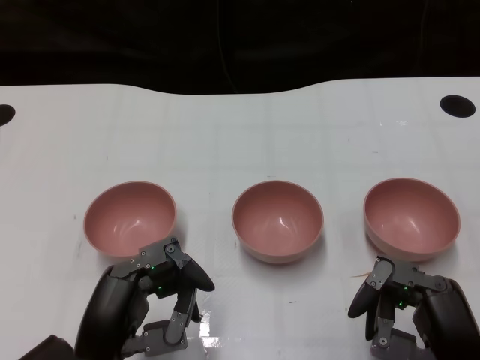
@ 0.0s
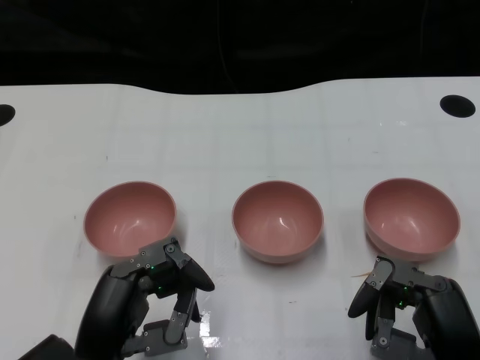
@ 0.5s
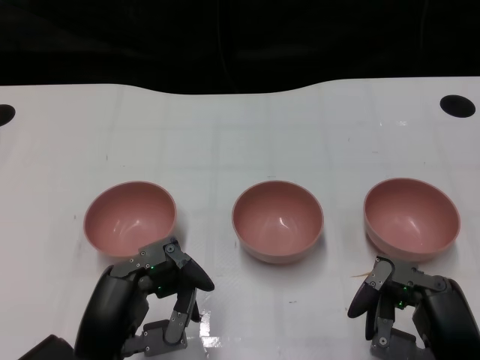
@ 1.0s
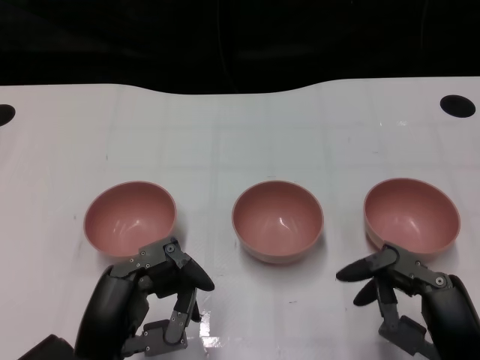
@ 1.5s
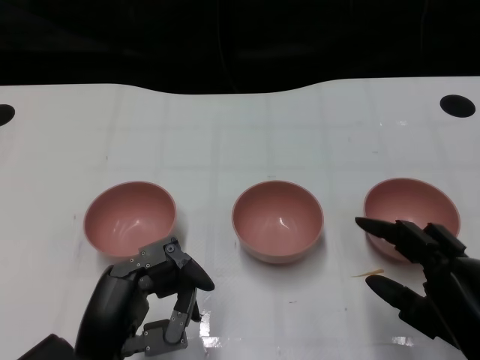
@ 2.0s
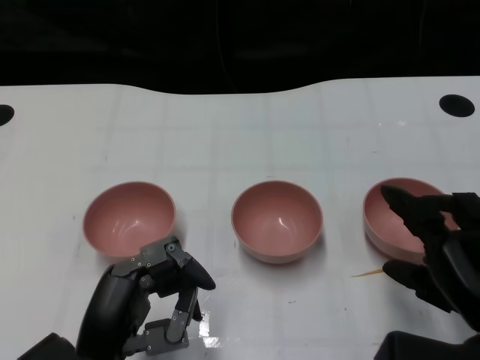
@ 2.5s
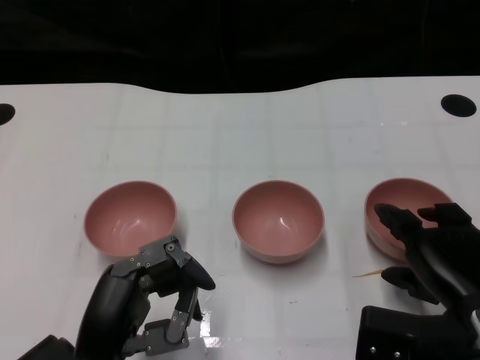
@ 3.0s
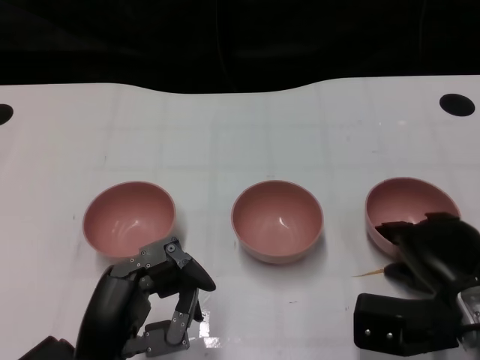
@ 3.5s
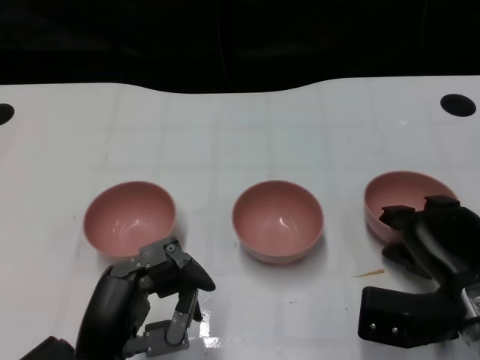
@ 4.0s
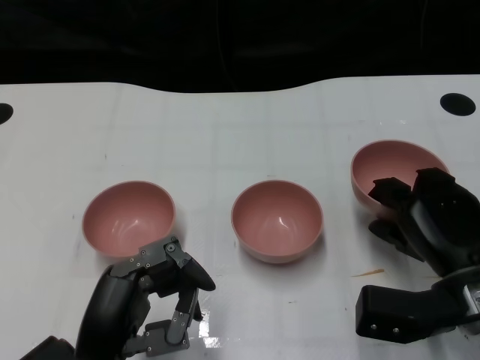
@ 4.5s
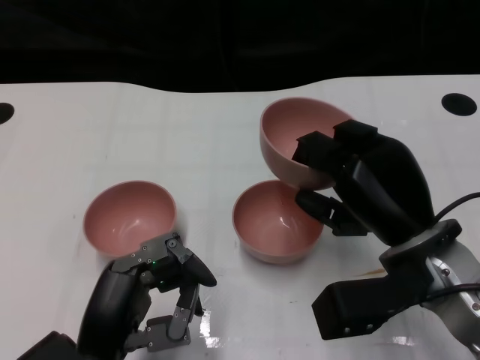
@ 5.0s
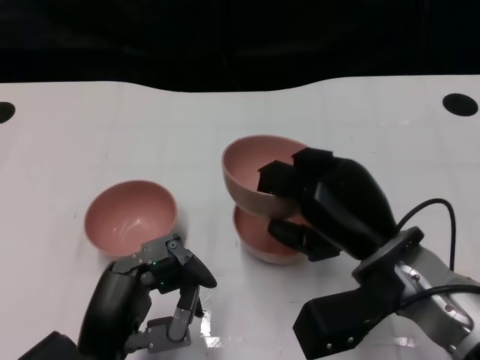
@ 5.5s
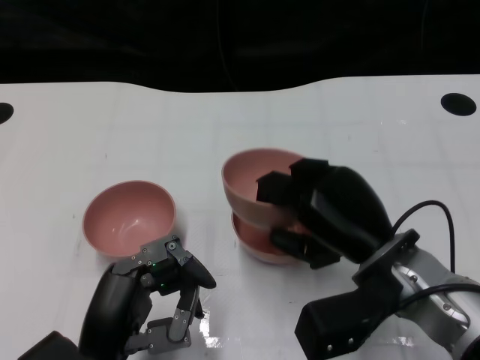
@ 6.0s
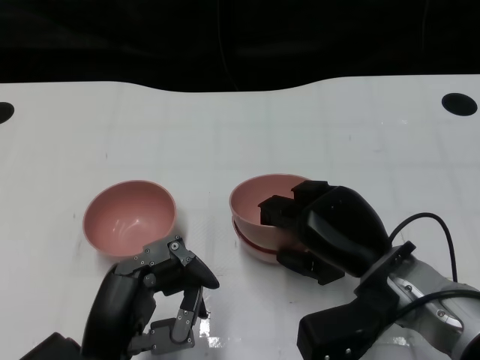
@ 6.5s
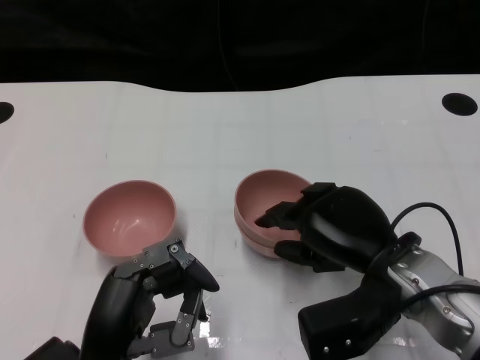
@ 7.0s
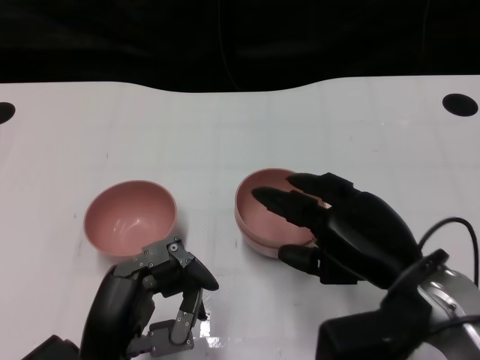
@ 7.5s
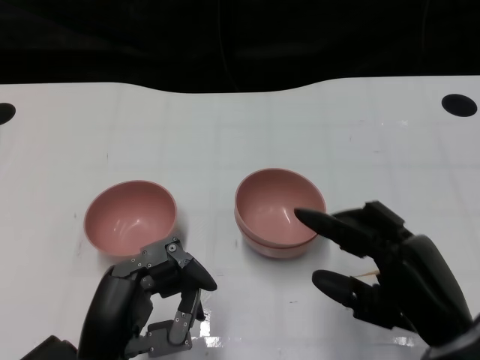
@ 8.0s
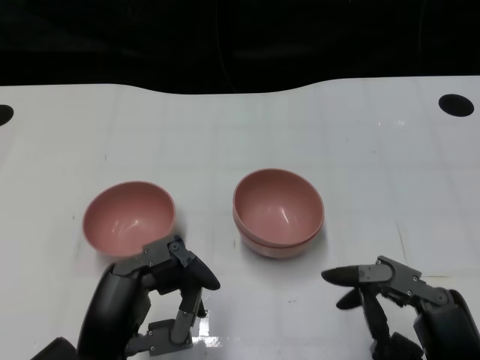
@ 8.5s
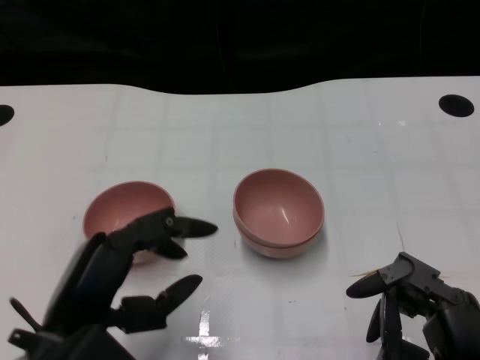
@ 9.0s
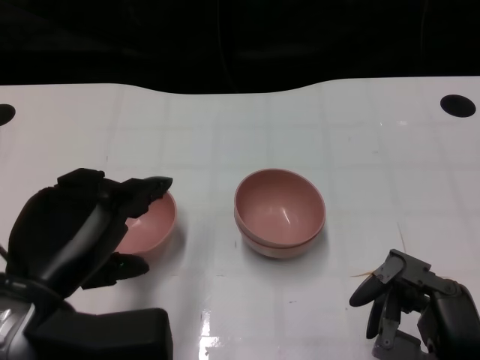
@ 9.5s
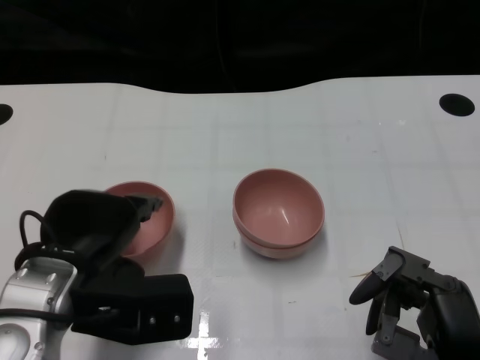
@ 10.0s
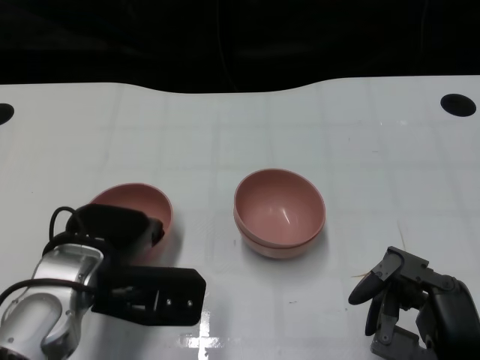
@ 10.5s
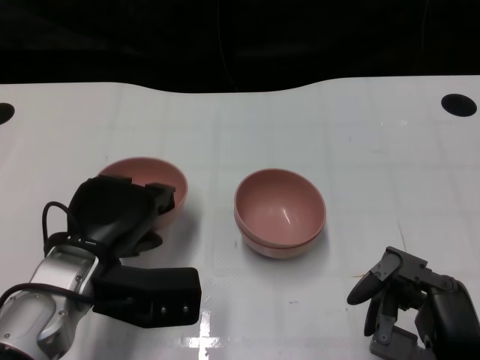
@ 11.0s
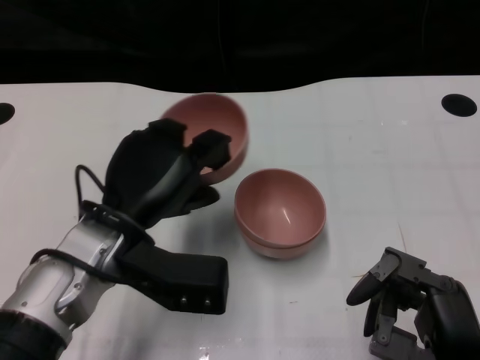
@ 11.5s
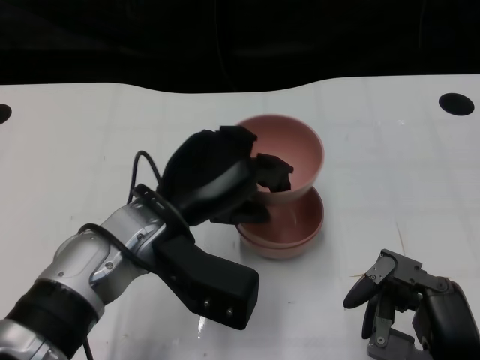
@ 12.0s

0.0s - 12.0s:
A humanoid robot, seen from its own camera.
Task of the whole recording: Pick up the bowl on one side of the table and place it on top of the middle bowl, then pick up the bowl on the other side of the table and place it on top of the middle bowls.
Step, 1.5s - 4.0s: Grasp the bowl on the right with the right gripper.
Step, 4.5s - 7.5s: Place the bowl on the right onto the bowl in the middle with right gripper.
Step, 8.0s - 10.5s: Grasp the bowl on the left with the left gripper.
2.0s - 4.0s: The right hand shifts about 10 cm forward.
4.0s - 6.0s: The right hand goes about 10 cm to the left and upward.
6.0s - 8.0s: The right hand is displaced backward and to the right by some 10 cm.
8.0s - 10.0s: The left hand is displaced forward and upward by some 10 cm.
10.0s - 12.0s: The left hand is displaced to the right by roughly 10 cm.

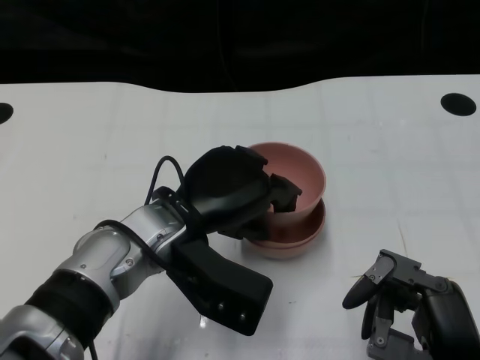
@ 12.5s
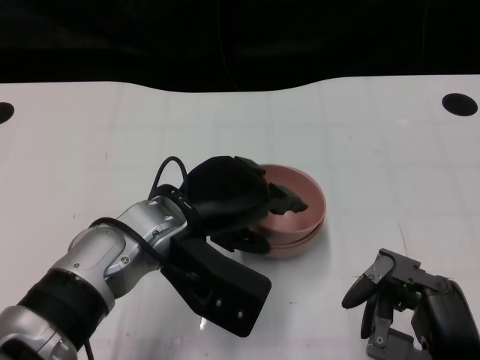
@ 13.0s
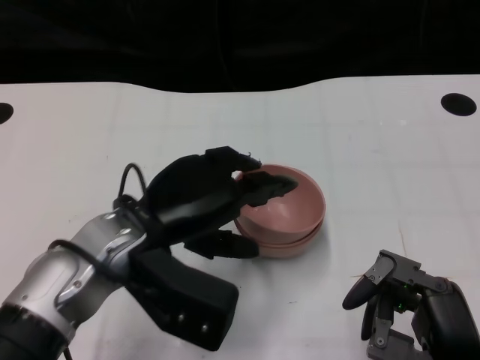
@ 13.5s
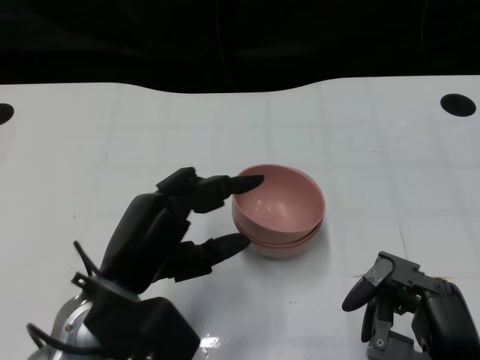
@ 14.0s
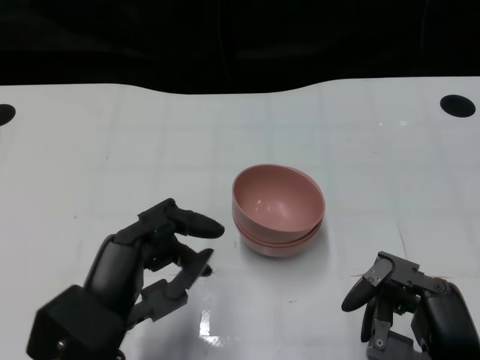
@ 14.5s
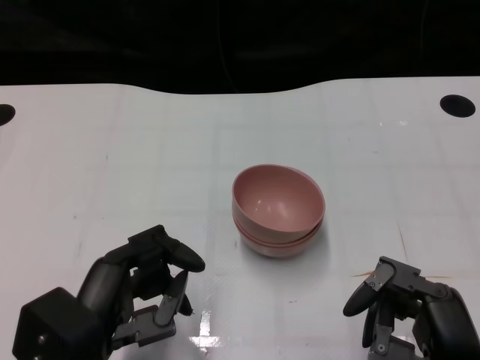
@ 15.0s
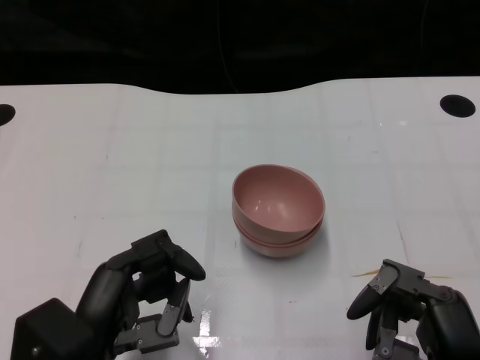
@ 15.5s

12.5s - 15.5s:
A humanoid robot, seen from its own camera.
Task of the whole recording: Pick up the bowl on one side of the table and place it on top of the middle bowl, then pick up the bowl on the other side of the table and place it on top of the middle bowls.
Step, 12.5s - 14.0s: Place the bowl on the left onto the bowl in the middle with left gripper.
12.5s - 14.0s: The left hand moves backward and to the left, some 10 cm.
14.0s - 15.5s: The left hand heads backward, covering about 5 cm.
